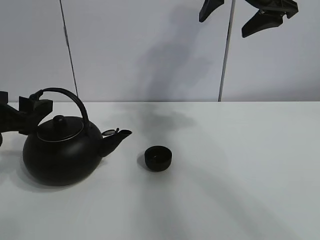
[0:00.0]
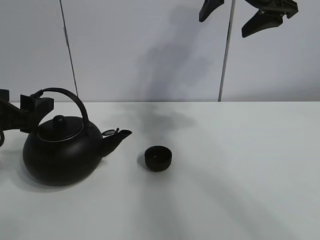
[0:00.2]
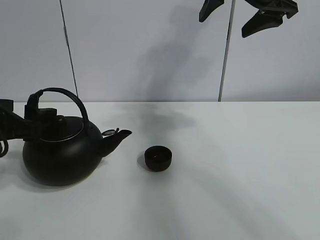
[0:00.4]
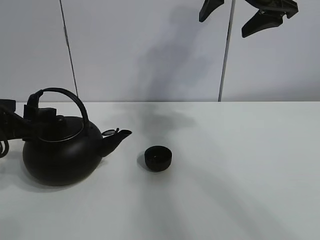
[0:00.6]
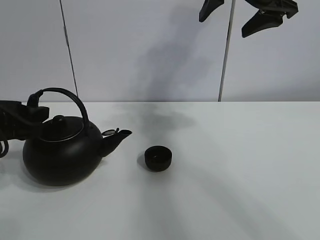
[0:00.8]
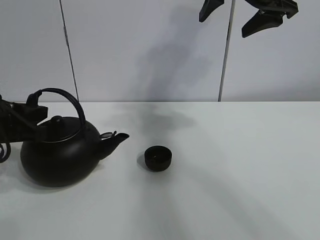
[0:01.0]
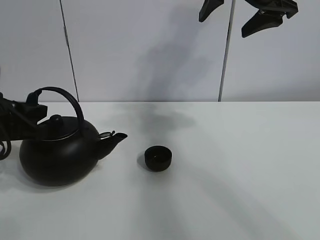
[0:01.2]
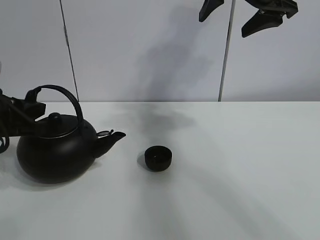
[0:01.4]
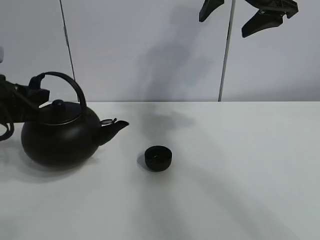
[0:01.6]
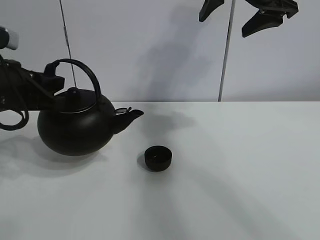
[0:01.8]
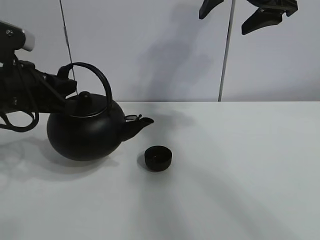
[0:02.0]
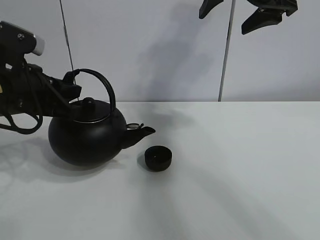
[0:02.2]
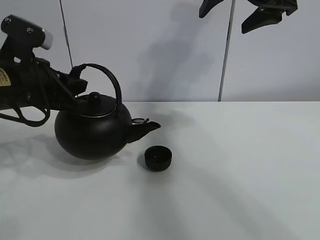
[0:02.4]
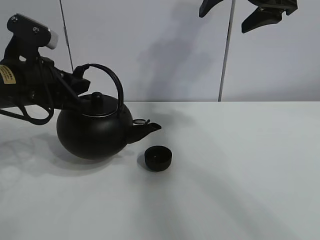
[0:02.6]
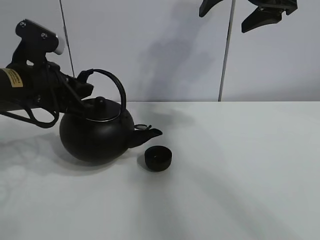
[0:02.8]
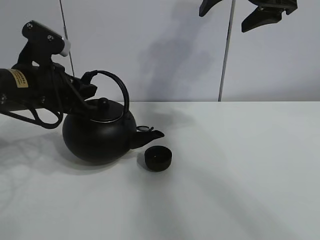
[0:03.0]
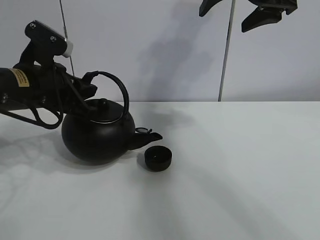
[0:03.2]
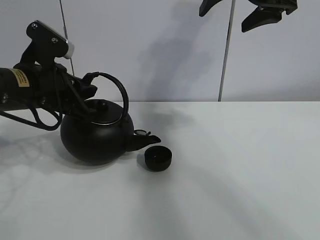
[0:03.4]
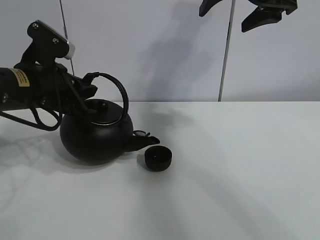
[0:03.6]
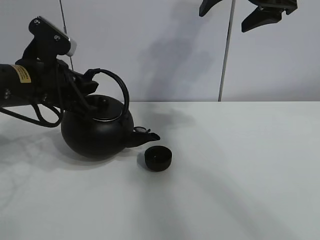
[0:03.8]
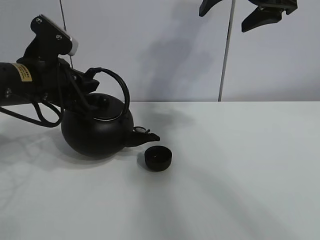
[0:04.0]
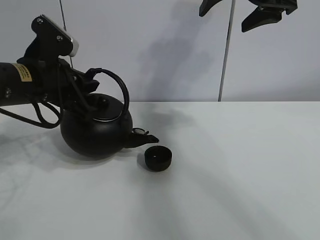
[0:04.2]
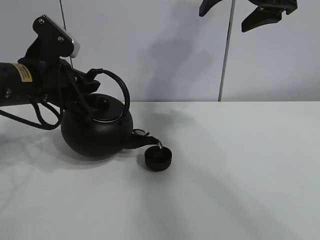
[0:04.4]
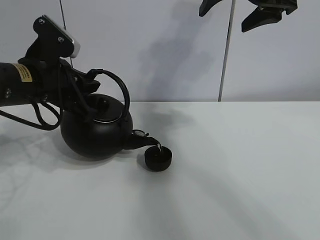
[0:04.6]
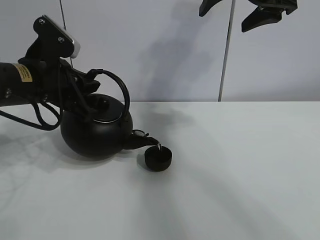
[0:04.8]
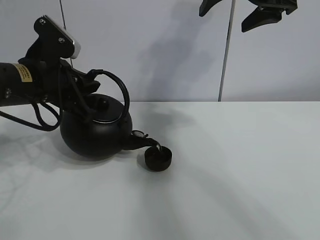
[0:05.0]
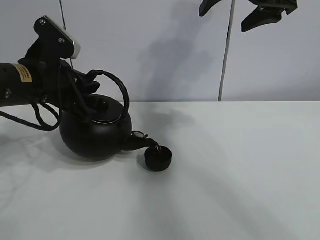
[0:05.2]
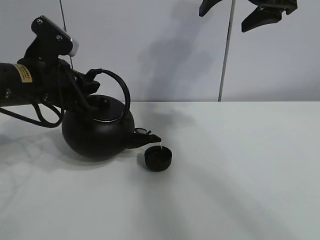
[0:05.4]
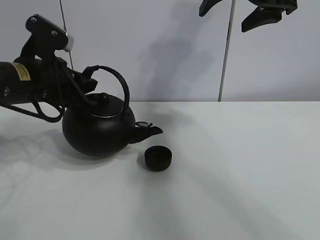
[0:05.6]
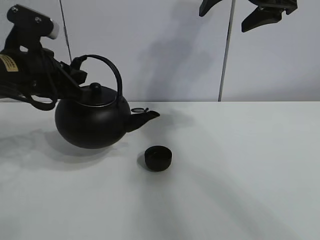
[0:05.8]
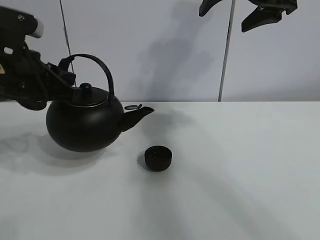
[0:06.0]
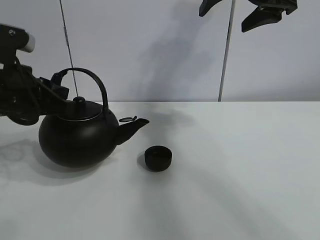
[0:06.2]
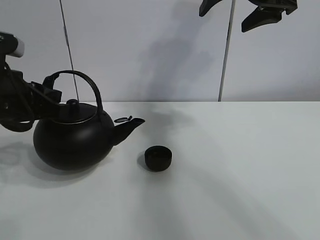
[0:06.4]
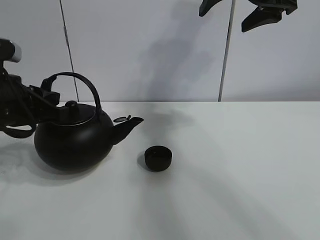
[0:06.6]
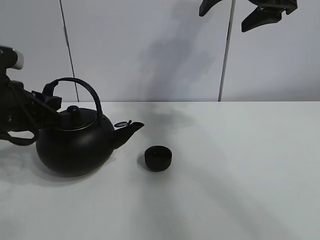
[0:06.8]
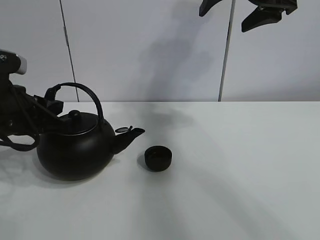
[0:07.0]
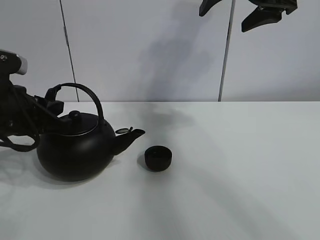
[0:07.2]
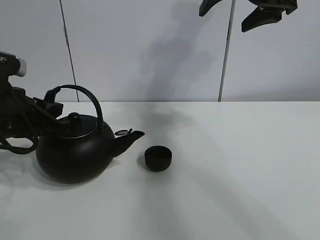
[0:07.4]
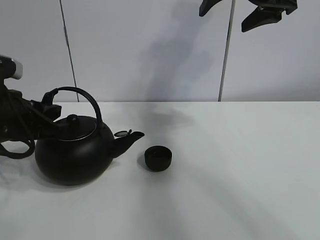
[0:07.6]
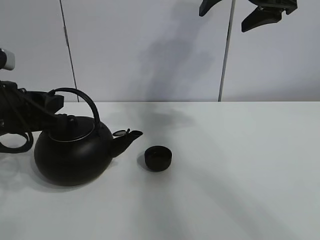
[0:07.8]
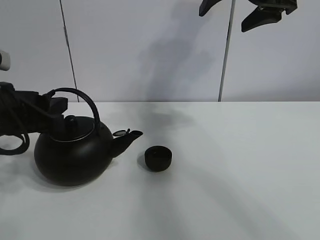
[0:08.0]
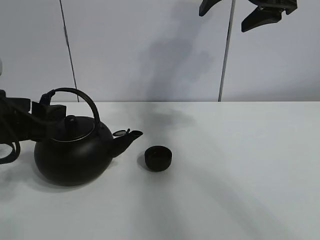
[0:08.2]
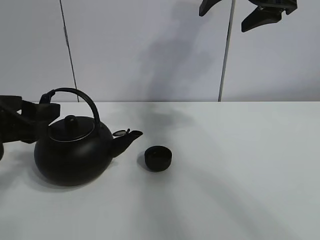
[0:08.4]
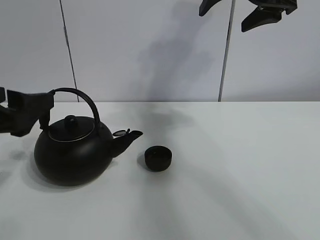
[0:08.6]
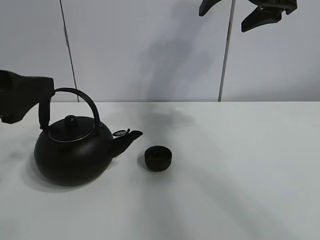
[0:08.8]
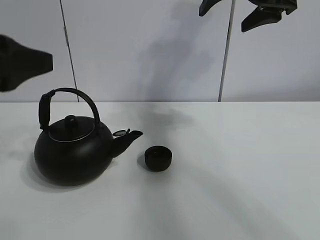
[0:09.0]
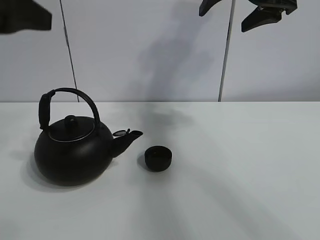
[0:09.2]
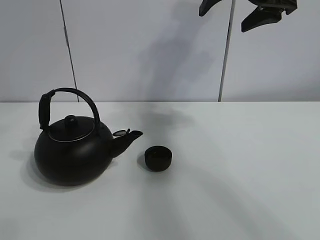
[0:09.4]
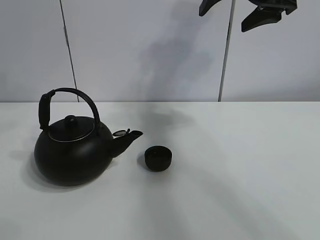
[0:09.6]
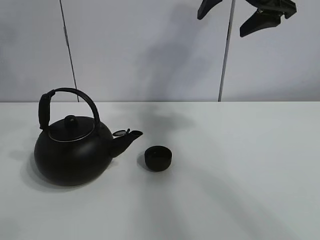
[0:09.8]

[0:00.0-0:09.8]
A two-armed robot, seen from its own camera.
Task of the whole recording: pour tea into the teacup.
Step, 0:01.4 to 0:05.4: Pour tea into the teacup with the left gripper.
0:00.0 to 0:01.4: The left gripper closes.
0:01.4 to 0:02.8: The left gripper goes about 5 cm to the right.
0:02.8 to 0:05.6: The grippers stay close to where they were, moving slightly.
0:05.6 to 0:07.0: The left gripper moves backward, some 5 cm.
0:07.0 to 0:08.4: The left gripper opens.
0:08.4 to 0:09.8: The left gripper heads upward, covering some 25 cm.

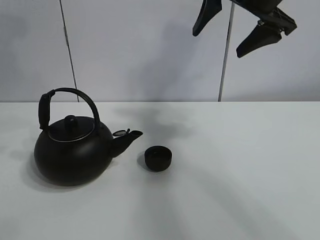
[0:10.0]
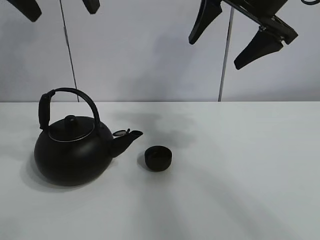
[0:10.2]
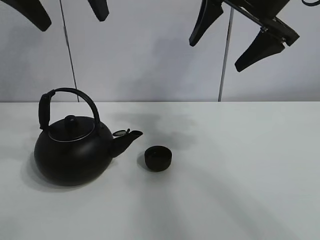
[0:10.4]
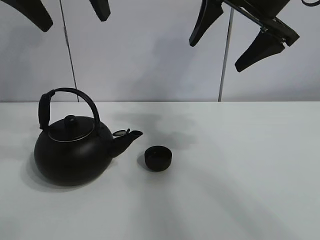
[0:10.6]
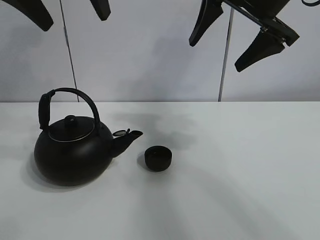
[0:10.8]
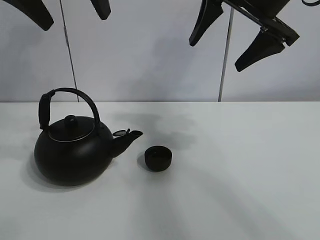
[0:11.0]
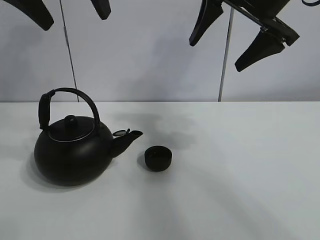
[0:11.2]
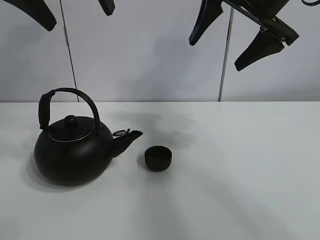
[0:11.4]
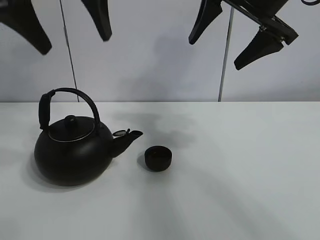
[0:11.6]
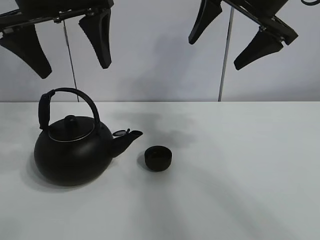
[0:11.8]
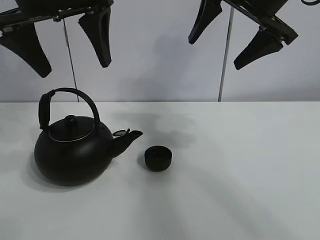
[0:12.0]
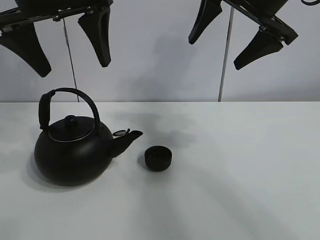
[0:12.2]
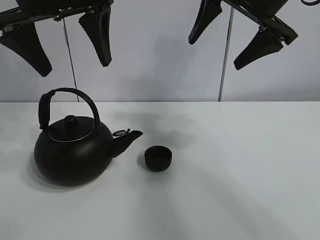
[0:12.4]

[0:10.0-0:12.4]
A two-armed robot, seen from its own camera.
Task of the whole recording: pour tea into the teacup.
0:10.0 to 0:11.2: The grippers move only a little.
0:11.2 to 0:12.4: The left gripper heads downward, covering roughly 5 cm.

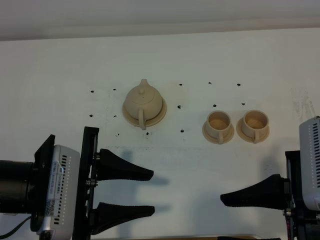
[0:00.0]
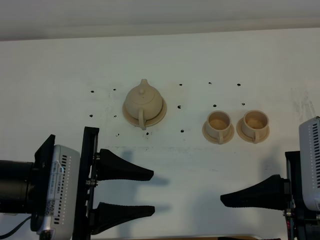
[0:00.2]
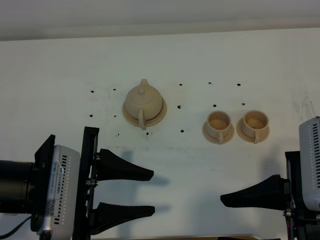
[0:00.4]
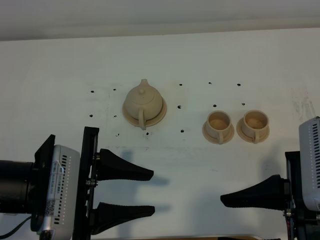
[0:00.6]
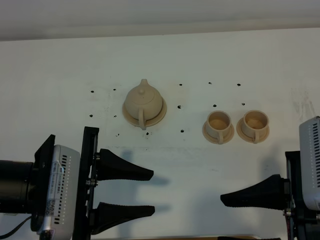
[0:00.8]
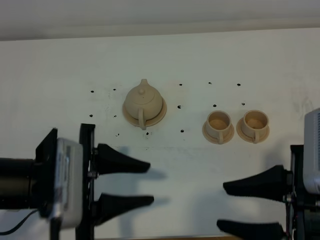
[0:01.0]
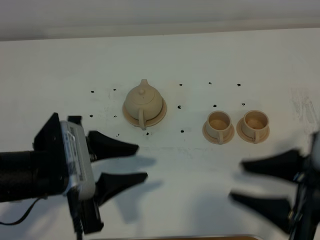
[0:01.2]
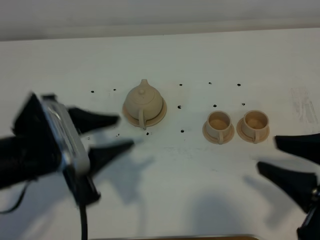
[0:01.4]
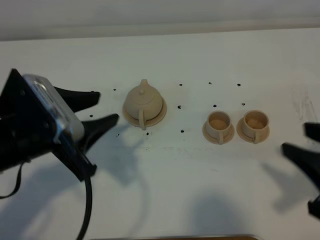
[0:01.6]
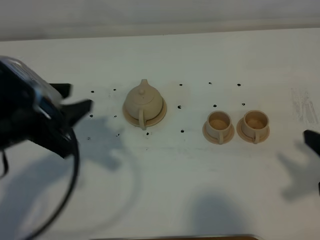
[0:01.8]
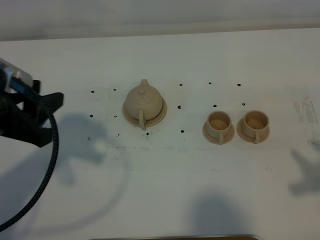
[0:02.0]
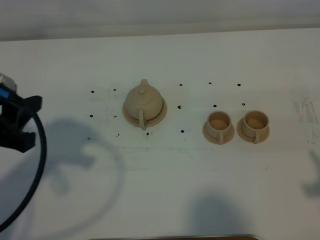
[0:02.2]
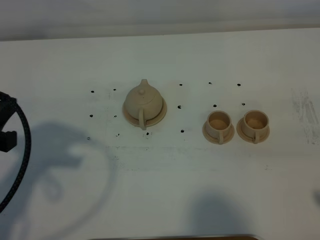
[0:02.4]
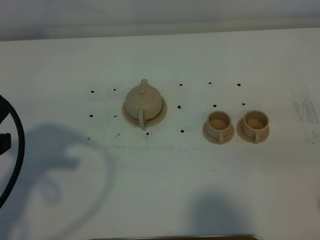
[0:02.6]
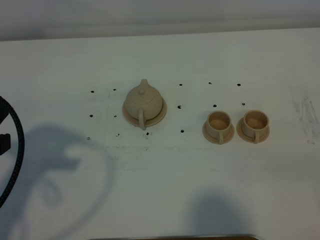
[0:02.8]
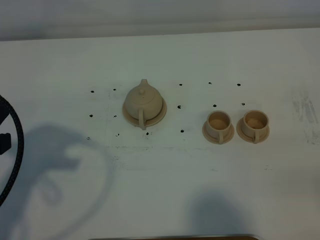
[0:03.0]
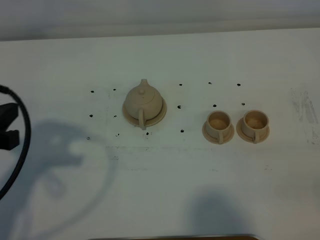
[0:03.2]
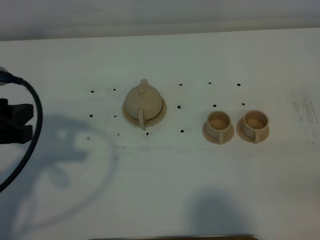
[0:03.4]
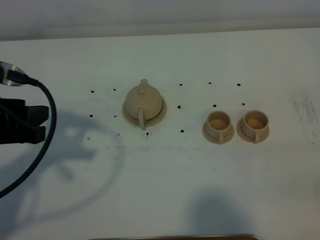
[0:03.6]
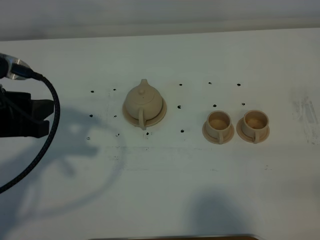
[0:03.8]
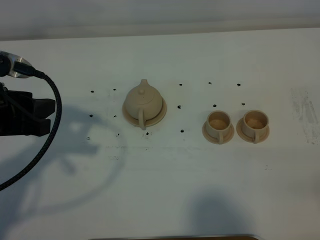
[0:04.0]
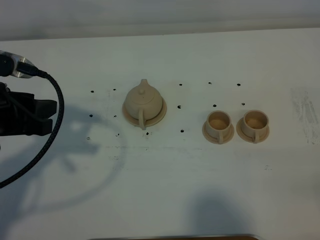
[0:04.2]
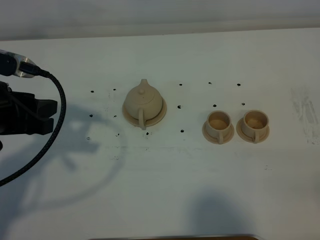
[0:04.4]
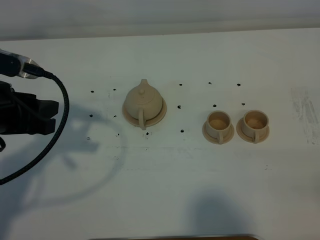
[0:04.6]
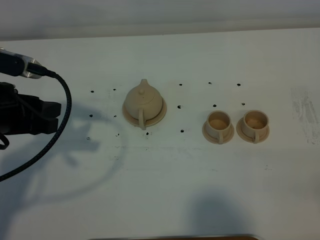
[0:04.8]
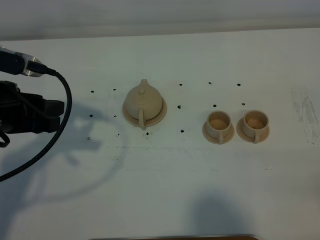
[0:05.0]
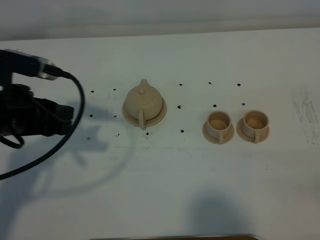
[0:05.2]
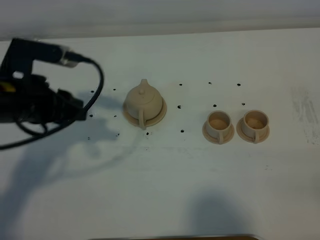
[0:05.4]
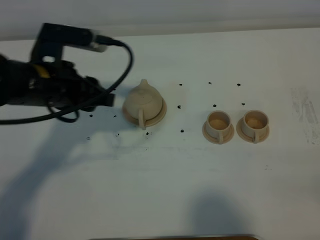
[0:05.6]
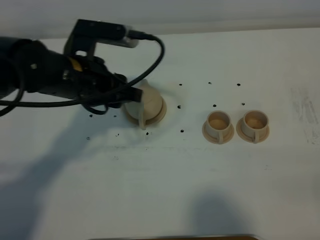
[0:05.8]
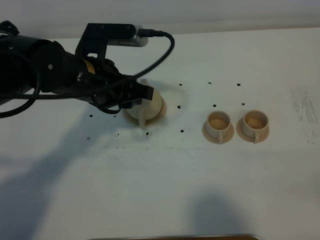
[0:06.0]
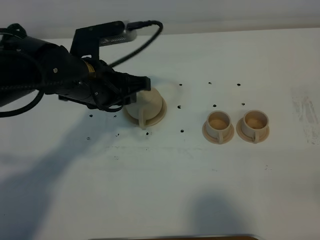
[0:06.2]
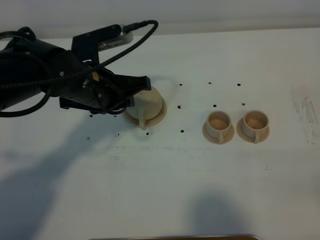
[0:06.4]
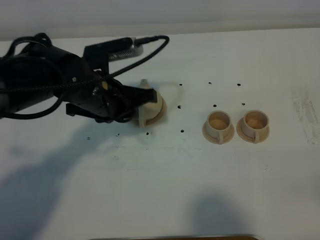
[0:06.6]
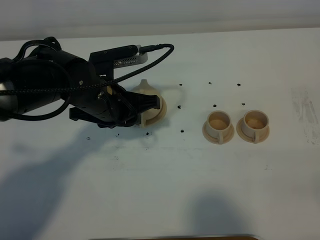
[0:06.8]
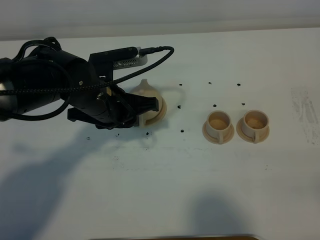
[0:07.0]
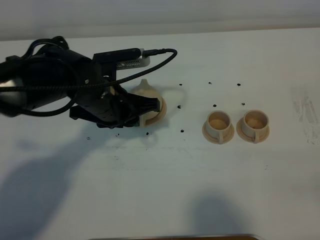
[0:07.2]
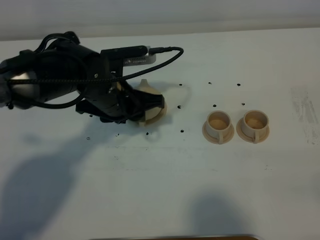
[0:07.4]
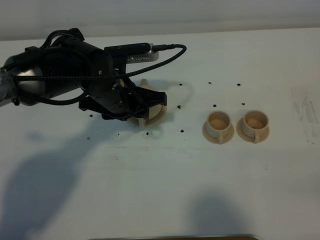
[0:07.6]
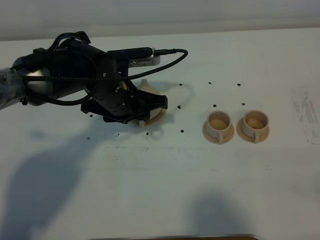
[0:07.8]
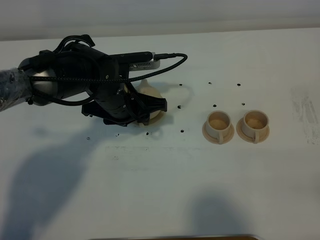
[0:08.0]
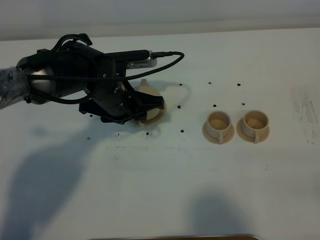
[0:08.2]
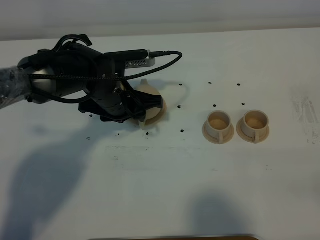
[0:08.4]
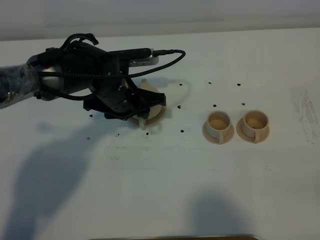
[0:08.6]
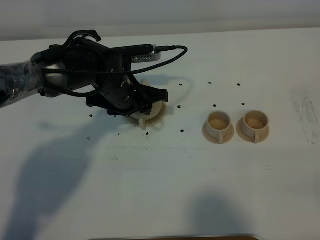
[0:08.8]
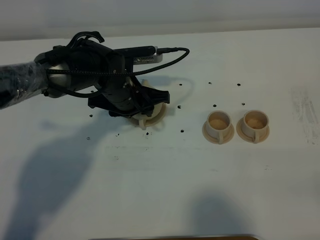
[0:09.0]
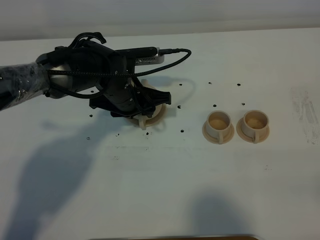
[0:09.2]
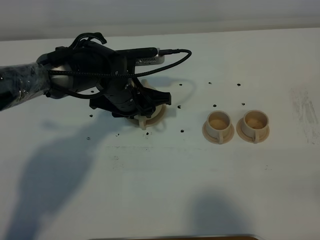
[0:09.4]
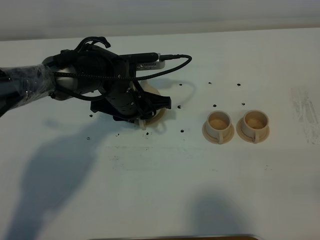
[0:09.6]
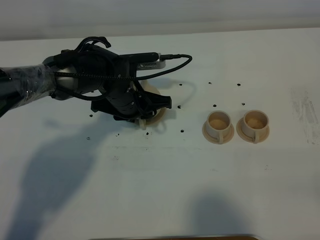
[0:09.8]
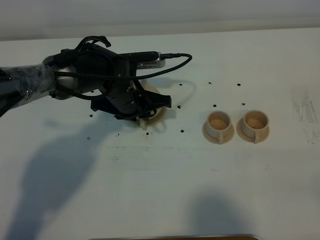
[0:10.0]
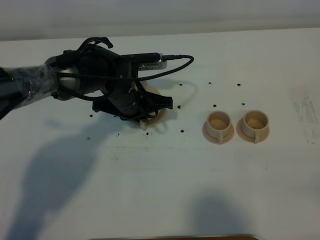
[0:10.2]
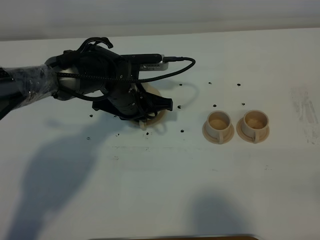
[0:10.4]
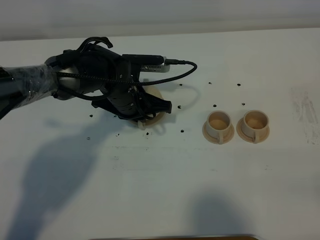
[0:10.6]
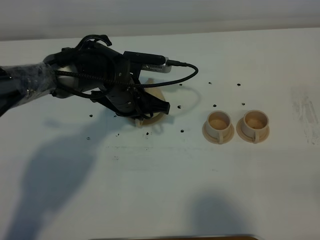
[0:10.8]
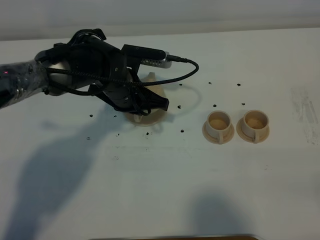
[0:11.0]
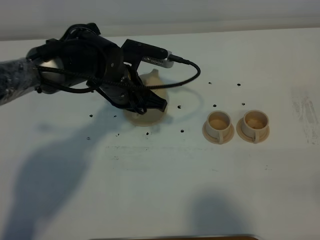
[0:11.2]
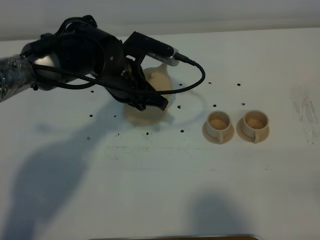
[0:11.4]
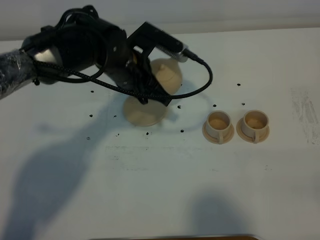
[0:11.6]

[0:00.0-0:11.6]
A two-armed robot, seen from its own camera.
Task of the whole recording: grasp the brown teapot and pour the tea into the two brown teacups one by one, put the brown teapot back in its original place.
Step, 0:00.0 to 0:10.2: Pick up the teapot with the left gripper.
0:01.4 to 0:02.8: The right gripper goes approximately 10 cm to the right and backward, while the left gripper shifts approximately 10 cm to the left.
0:02.8 to 0:04.4: The left gripper heads forward, covering some 5 cm.
0:04.4 to 0:05.8: The left gripper travels to the right and forward by about 15 cm.
0:05.8 to 0:07.2: The left gripper shifts some 5 cm downward.
0:07.2 to 0:08.8: The left gripper moves forward, some 5 cm.
0:08.8 to 0:10.2: The left gripper closes its fingers.
0:10.2 to 0:11.6: The left gripper travels upward by roughly 10 cm.
